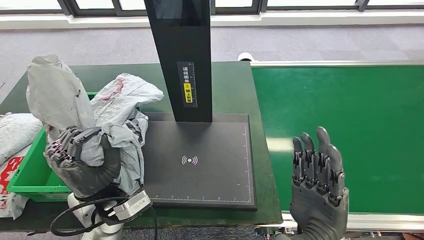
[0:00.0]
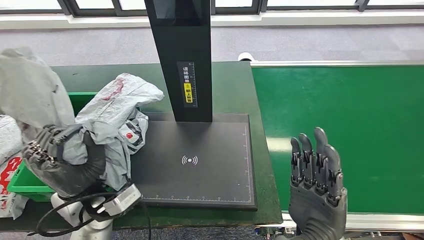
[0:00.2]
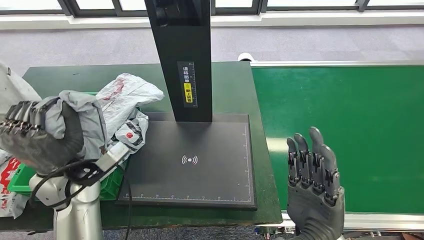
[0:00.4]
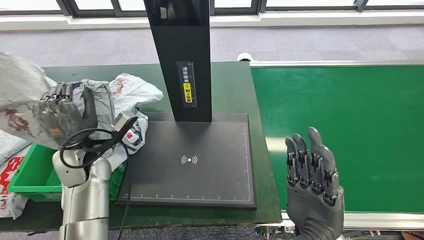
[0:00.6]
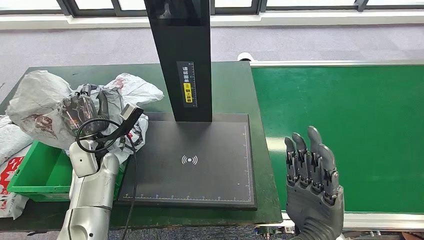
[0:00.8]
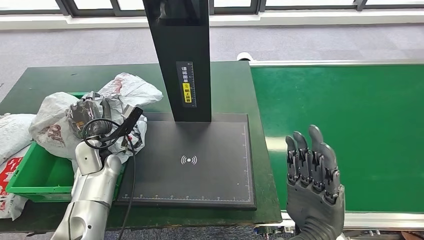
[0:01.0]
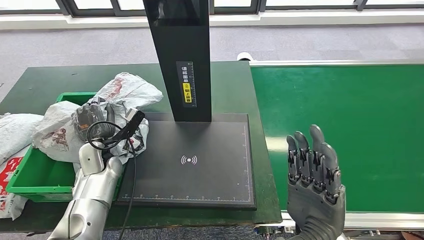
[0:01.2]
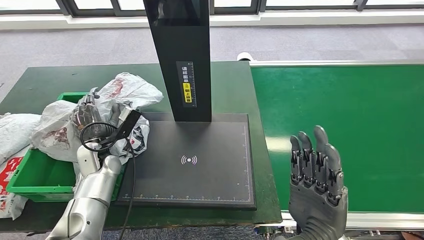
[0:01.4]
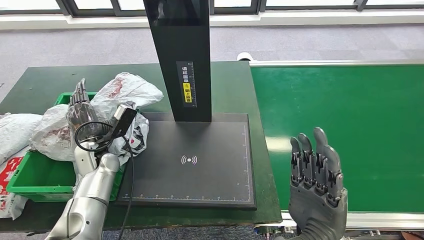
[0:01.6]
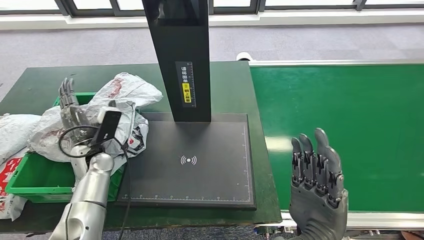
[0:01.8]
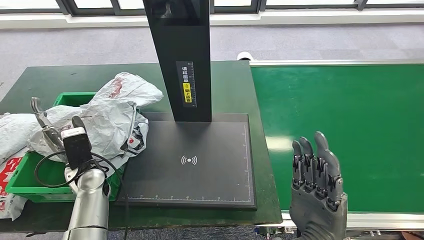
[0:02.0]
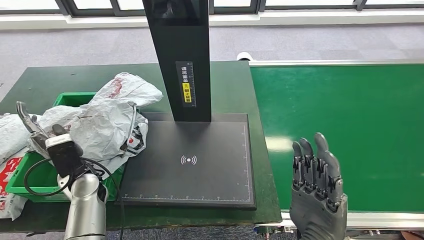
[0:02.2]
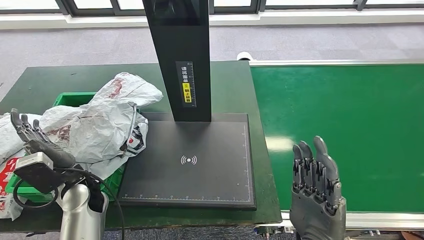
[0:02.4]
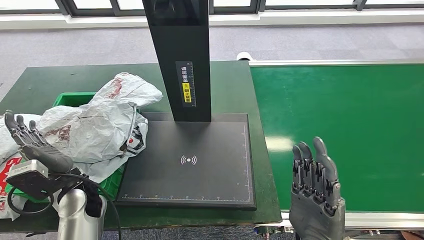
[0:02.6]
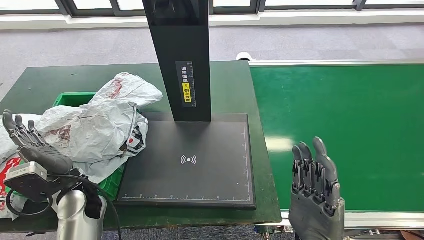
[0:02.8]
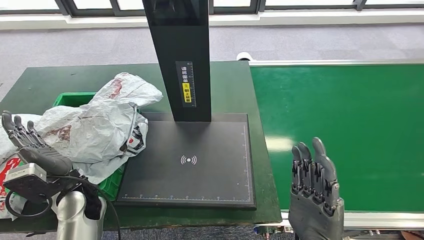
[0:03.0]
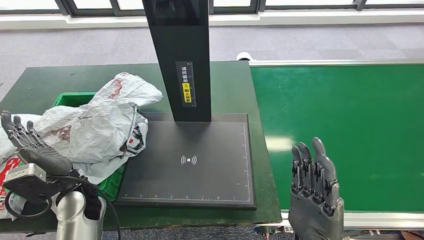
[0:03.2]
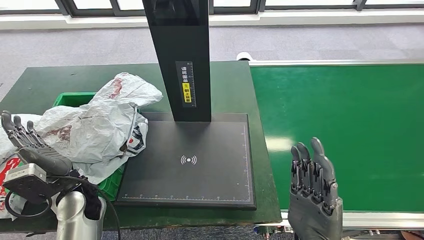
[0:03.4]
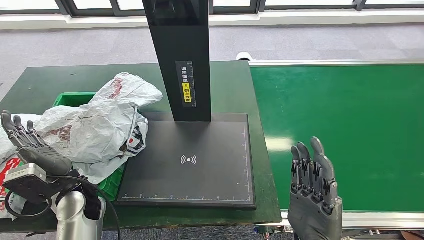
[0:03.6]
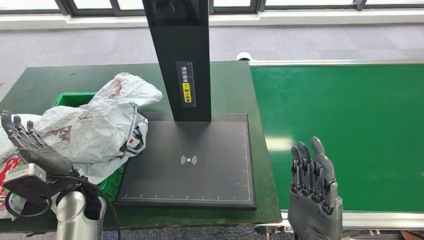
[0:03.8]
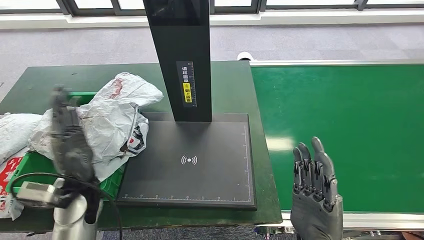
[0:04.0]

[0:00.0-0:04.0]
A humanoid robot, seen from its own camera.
Step, 0:00.0 to 0:04.0: Place the parcel into the delivery box.
0:00.0 to 0:01.4: The left hand goes roughly 15 cm forward, downward and to the left.
0:01.4 to 0:02.6: The left hand heads backward, covering roughly 10 cm.
